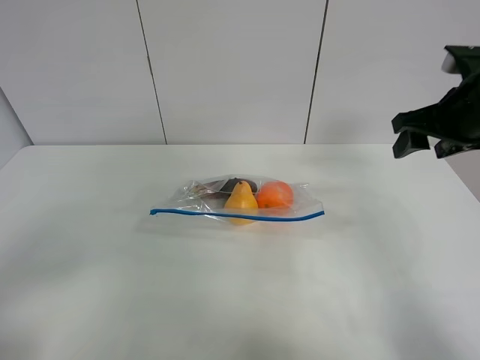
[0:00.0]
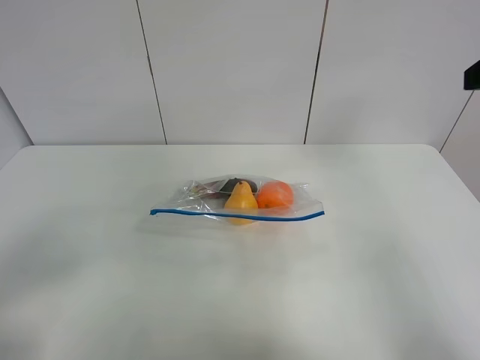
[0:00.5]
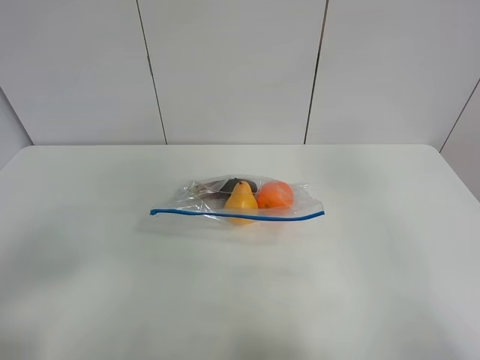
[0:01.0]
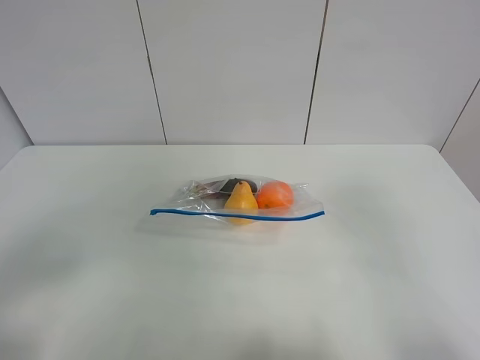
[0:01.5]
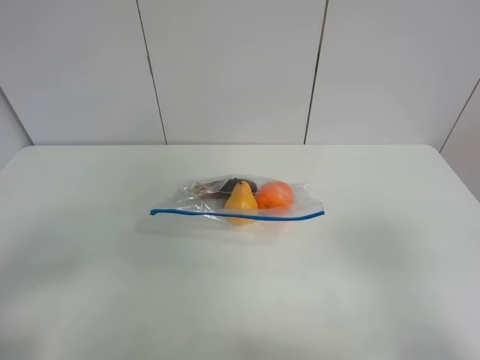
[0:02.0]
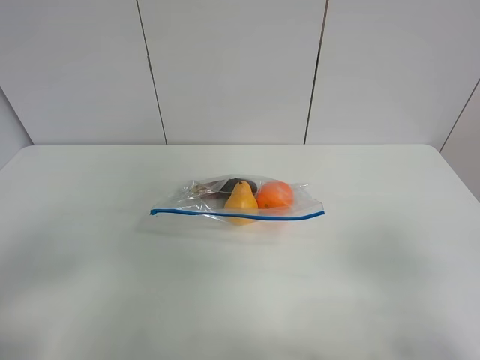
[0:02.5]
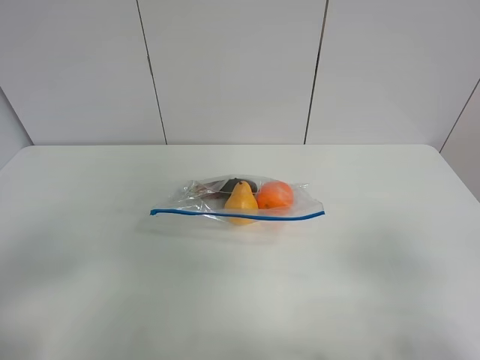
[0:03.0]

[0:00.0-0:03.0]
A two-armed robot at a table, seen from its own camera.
0:00.0 to 0:01.5: The right gripper heads backward, covering roughly 30 cm.

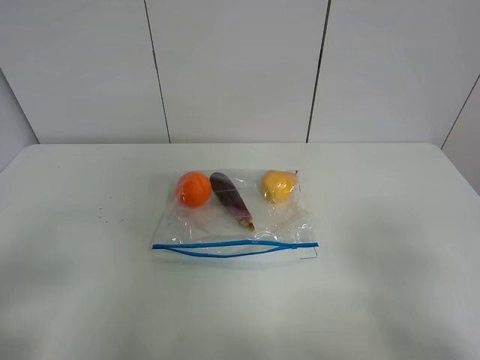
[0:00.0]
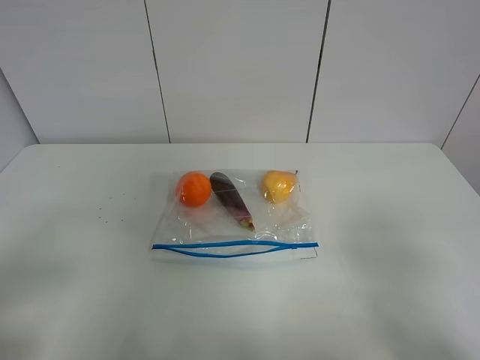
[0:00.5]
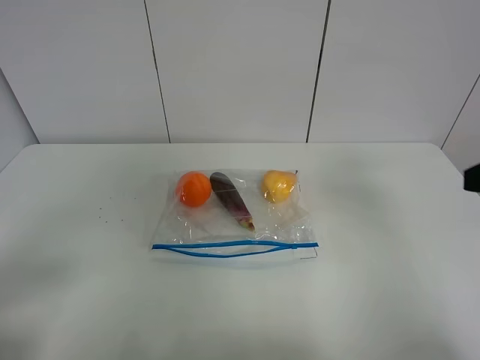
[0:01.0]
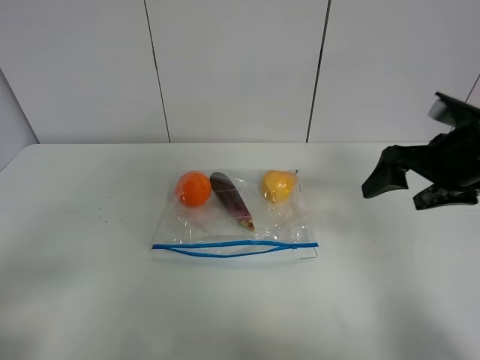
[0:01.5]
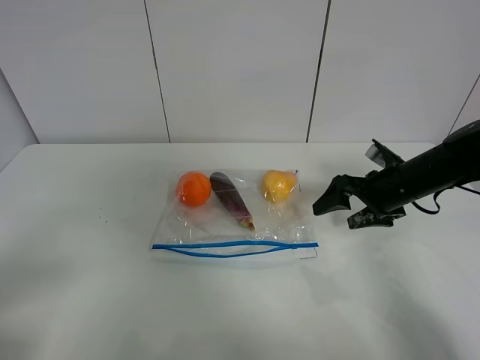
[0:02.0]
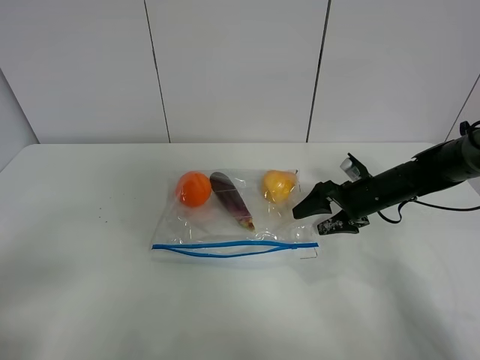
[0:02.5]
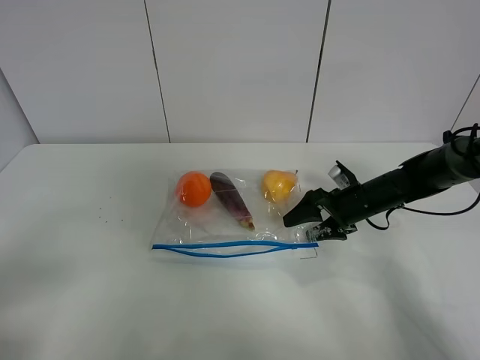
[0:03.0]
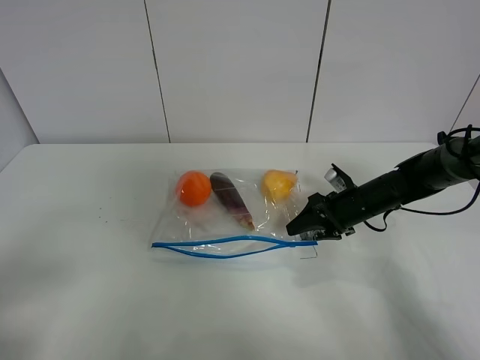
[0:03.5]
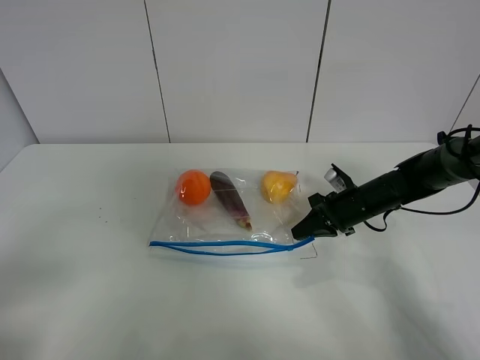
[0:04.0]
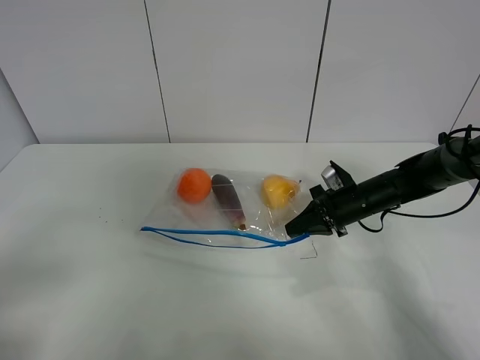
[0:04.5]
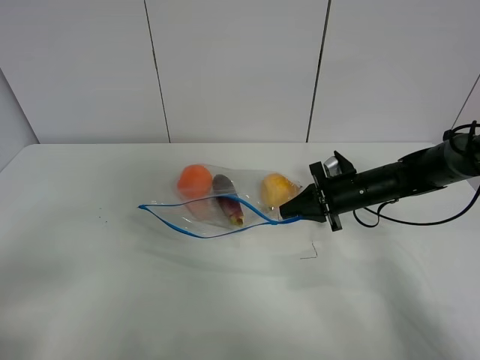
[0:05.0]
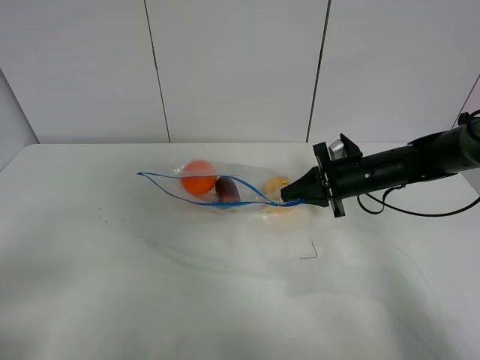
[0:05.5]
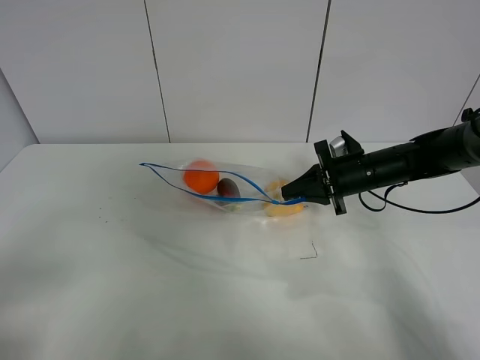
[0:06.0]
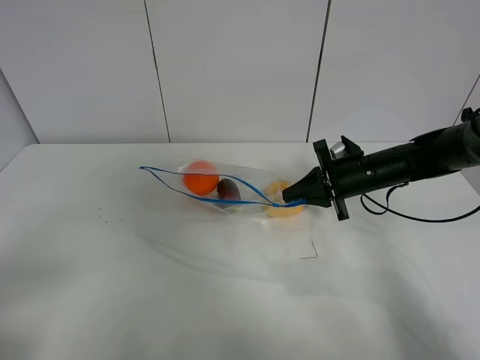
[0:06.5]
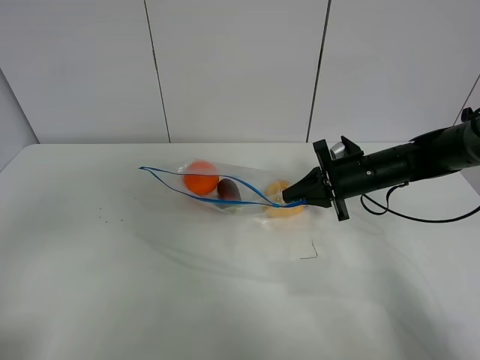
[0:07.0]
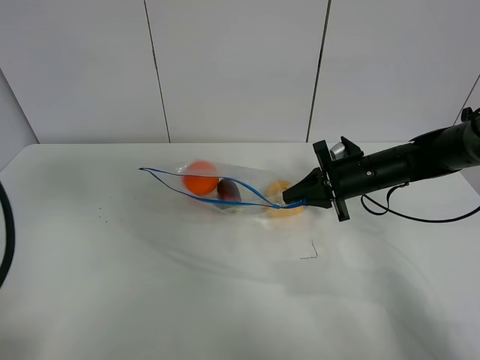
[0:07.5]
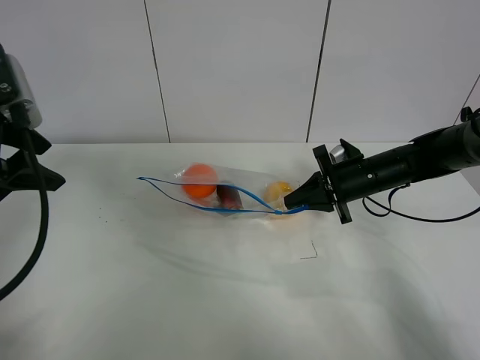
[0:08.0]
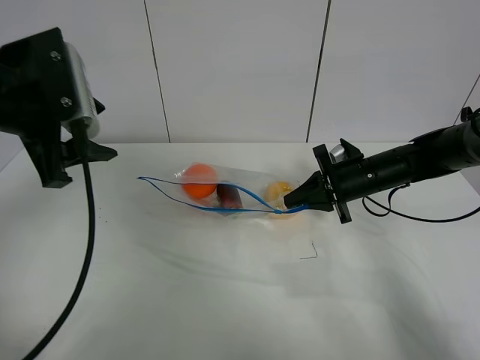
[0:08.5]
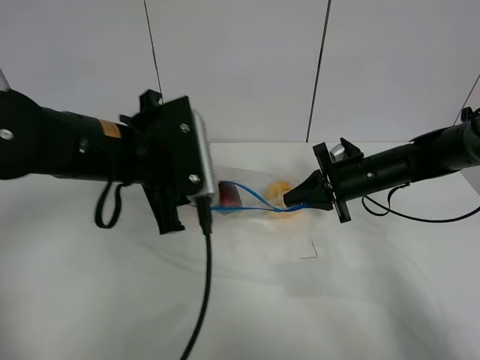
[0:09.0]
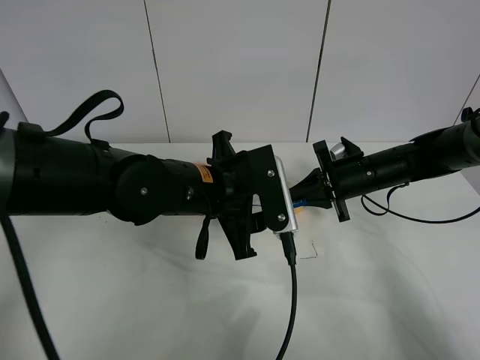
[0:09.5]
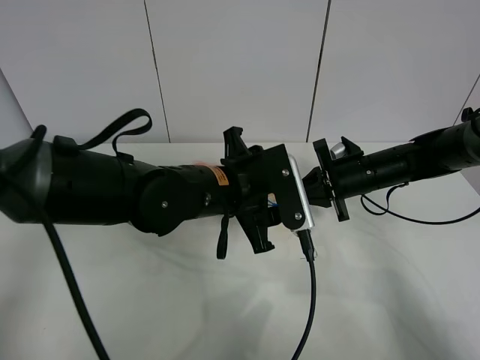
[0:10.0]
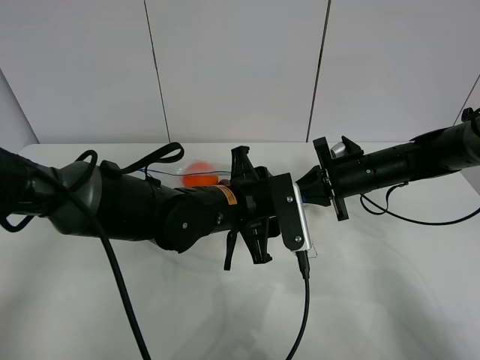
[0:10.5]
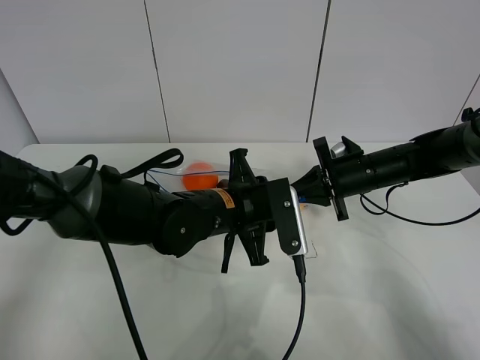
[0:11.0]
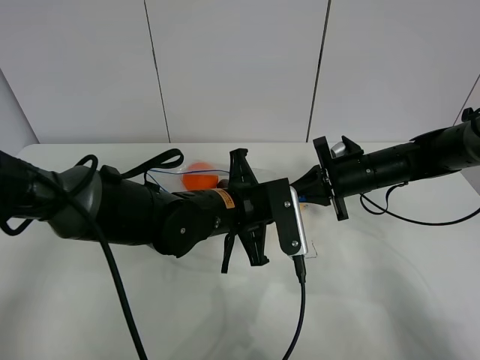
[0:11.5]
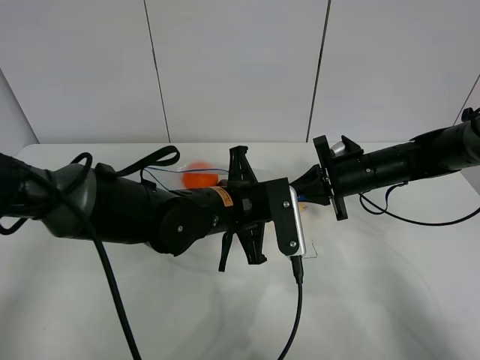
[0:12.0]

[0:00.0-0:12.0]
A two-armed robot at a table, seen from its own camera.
Step, 0:00.0 to 0:03.5: Grasp the fruit bag with right gripper.
Step, 0:04.0 to 0:06.5: Lift the fruit bag with your right gripper.
0:00.0 to 0:02.0: The right gripper heads forward and downward, covering approximately 35 cm.
0:02.0 to 0:04.0: The right gripper travels downward by roughly 5 cm, and closes its fingers.
0:04.0 to 0:06.0: The right gripper moves upward, approximately 5 cm.
0:06.0 to 0:08.0: The left gripper travels forward by some 25 cm.
0:08.0 to 0:10.0: The left gripper heads to the right and downward, covering about 30 cm.
0:10.0 to 0:12.0: The left gripper closes.

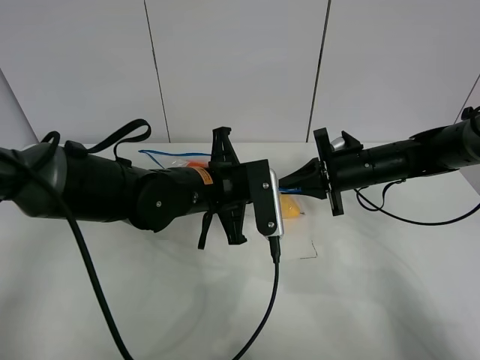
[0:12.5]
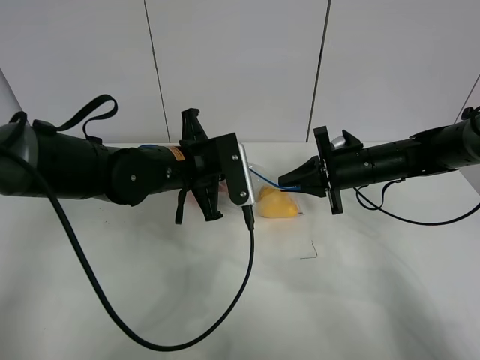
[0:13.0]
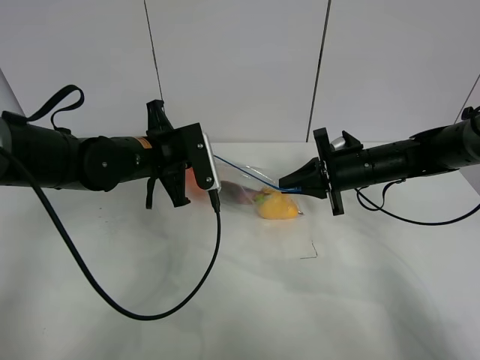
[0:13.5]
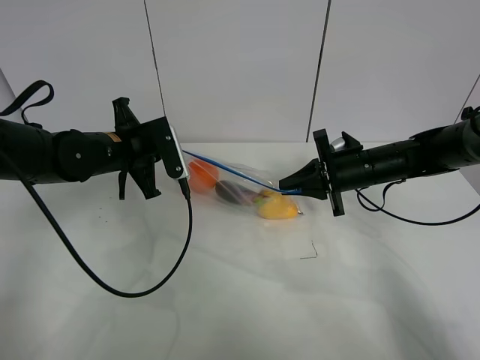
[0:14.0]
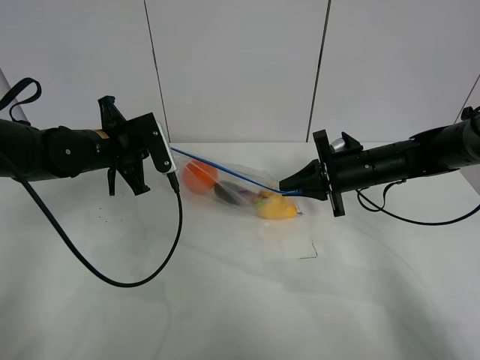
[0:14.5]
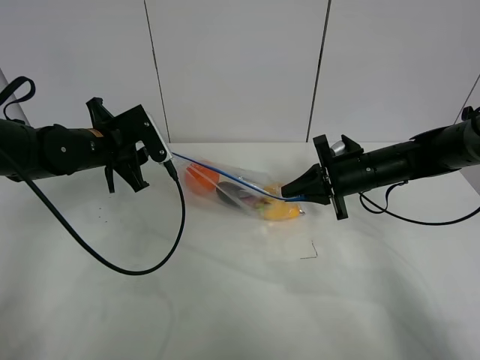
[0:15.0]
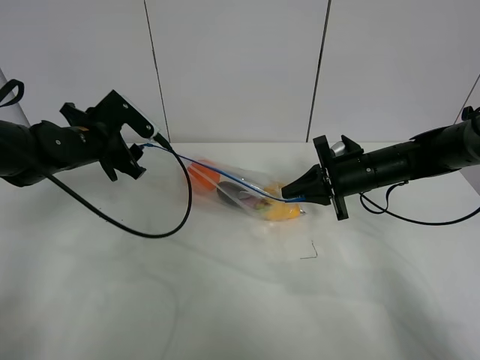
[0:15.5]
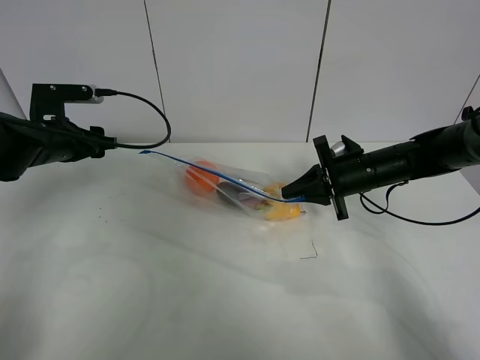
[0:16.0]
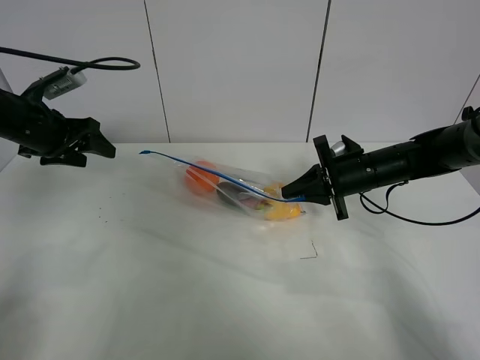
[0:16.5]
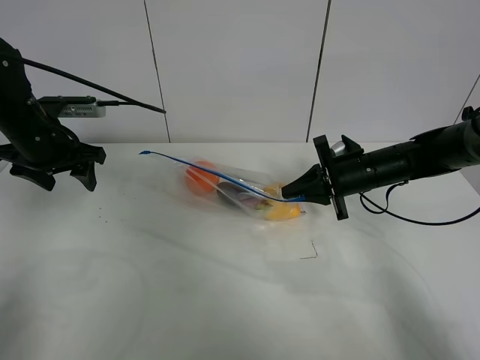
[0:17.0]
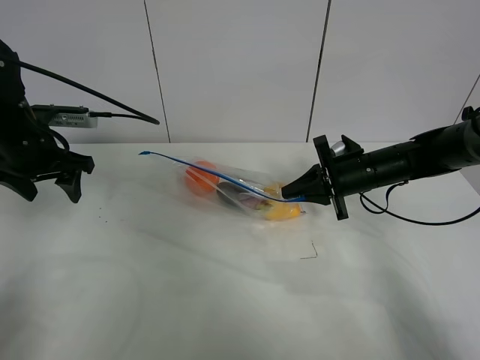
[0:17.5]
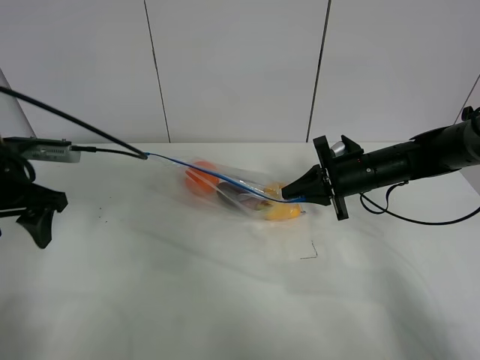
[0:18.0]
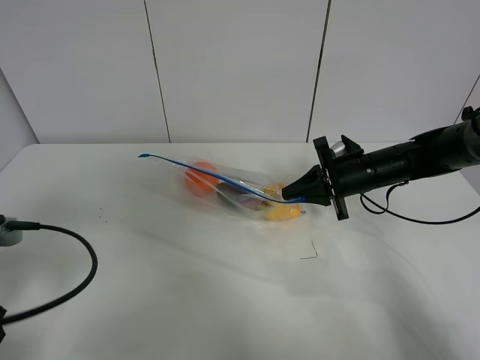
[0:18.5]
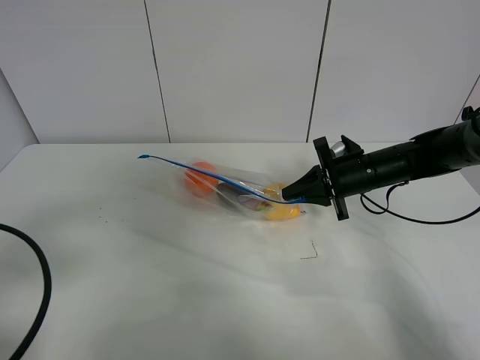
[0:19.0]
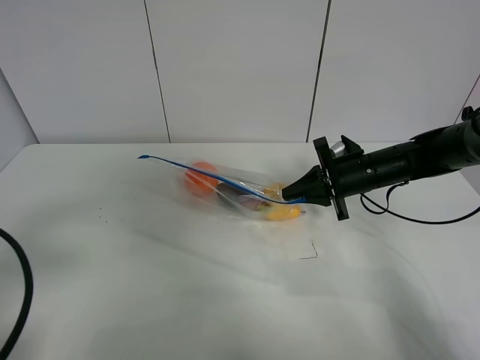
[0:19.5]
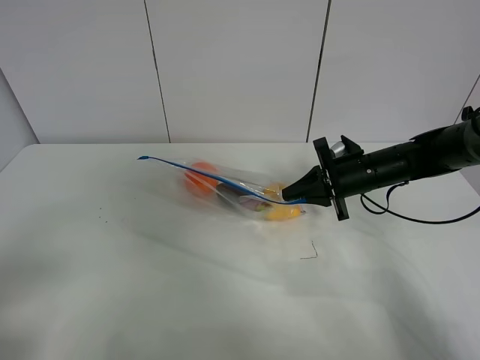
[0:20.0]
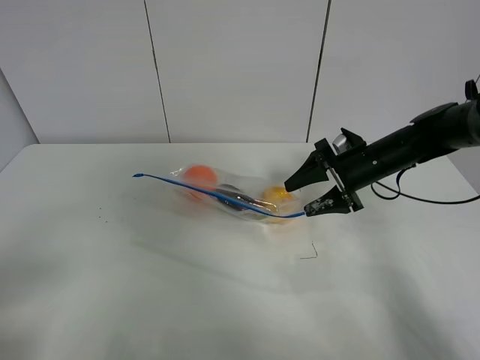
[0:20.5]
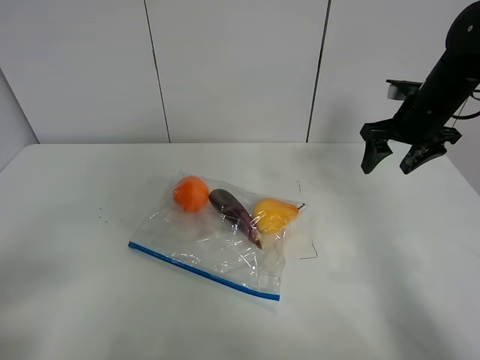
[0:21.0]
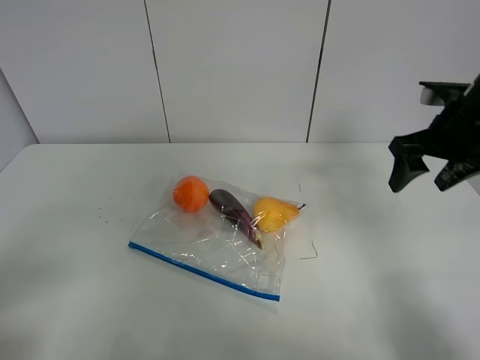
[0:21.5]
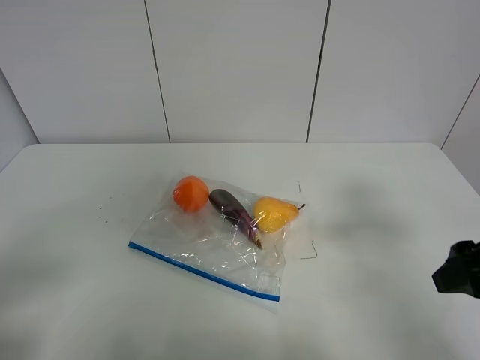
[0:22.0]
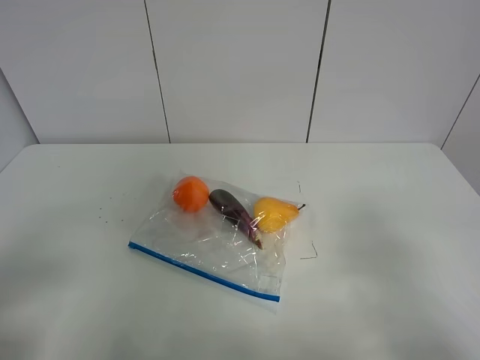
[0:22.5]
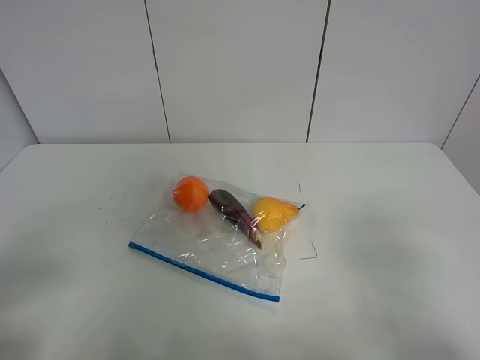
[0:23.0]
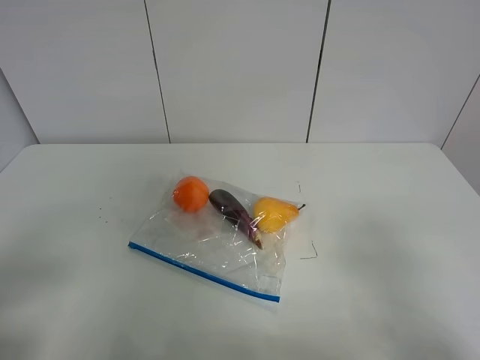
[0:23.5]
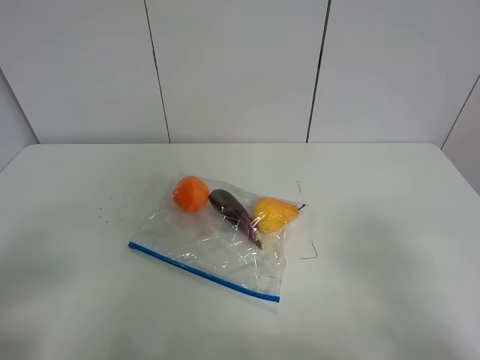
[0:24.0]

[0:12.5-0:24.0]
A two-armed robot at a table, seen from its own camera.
Step, 0:12.5 to 0:15.5: Pull the fruit bag with left gripper.
0:12.5 to 0:14.5: The left gripper shifts roughly 15 cm to the left and forward.
0:14.5 to 0:16.5: The left gripper shifts about 10 cm to the left, and opens.
0:16.5 to 0:18.5: The left gripper is displaced backward by roughly 25 cm.
0:18.5 to 0:20.0: The left gripper travels backward by approximately 10 cm.
0:20.0 to 0:22.0: The right gripper heads backward and upward, covering approximately 25 cm, and opens up.
0:22.0 to 0:24.0: The right gripper travels backward by some 15 cm.
